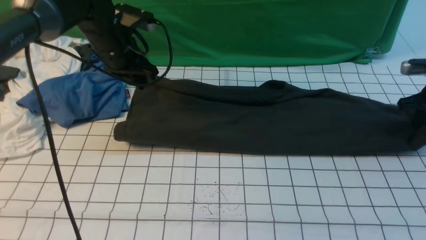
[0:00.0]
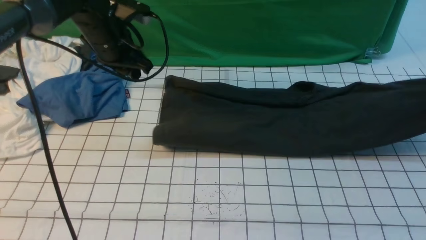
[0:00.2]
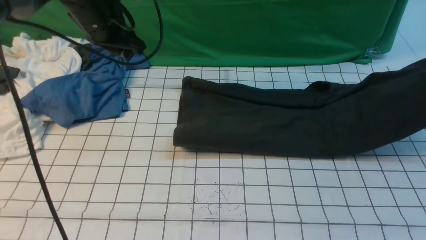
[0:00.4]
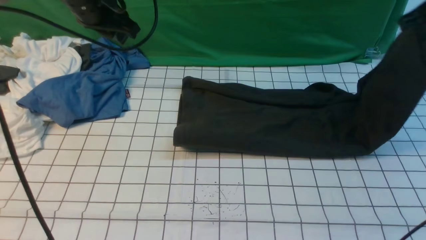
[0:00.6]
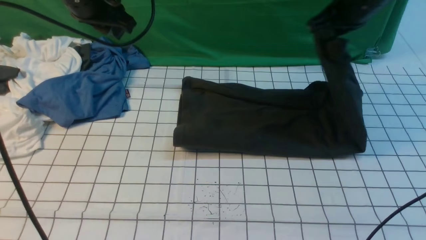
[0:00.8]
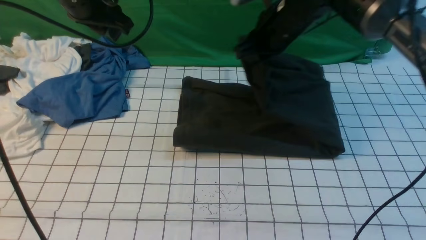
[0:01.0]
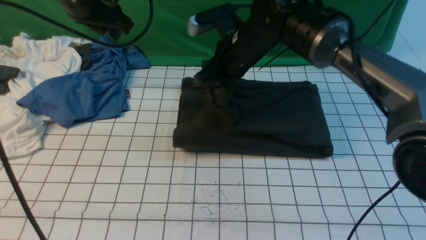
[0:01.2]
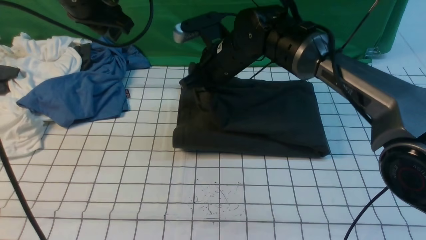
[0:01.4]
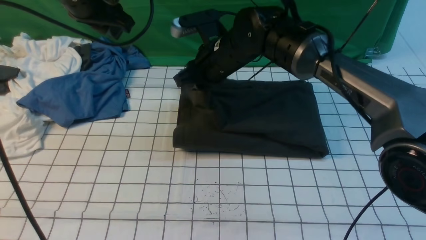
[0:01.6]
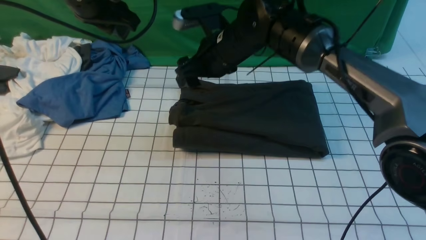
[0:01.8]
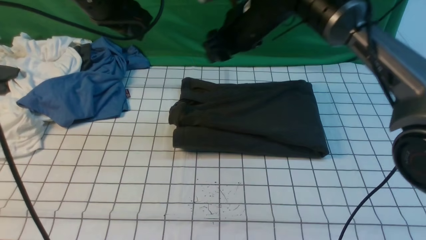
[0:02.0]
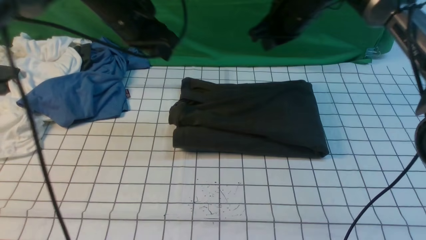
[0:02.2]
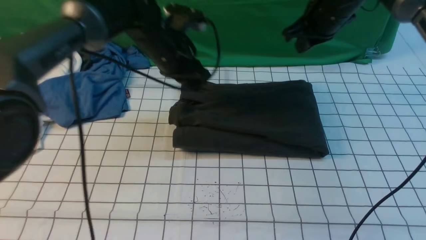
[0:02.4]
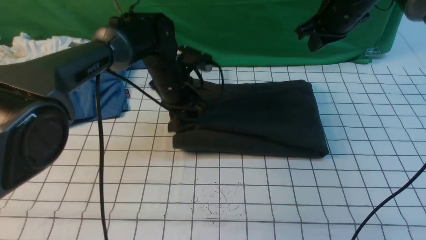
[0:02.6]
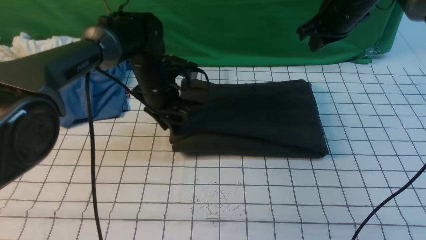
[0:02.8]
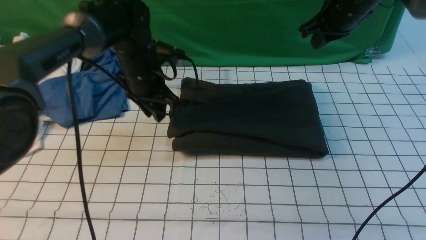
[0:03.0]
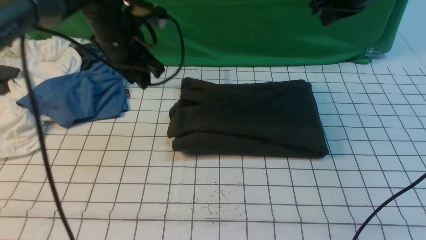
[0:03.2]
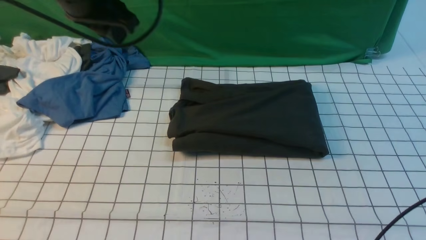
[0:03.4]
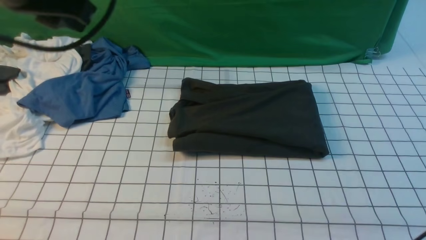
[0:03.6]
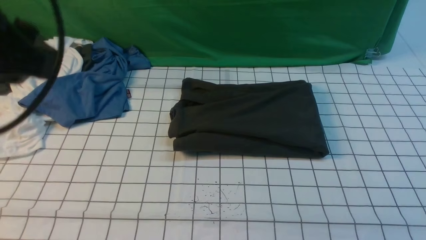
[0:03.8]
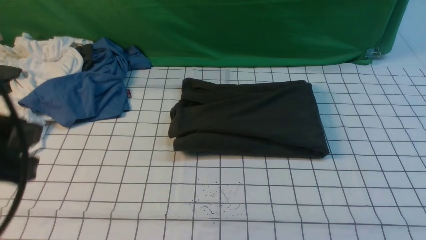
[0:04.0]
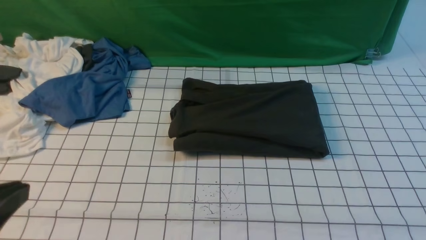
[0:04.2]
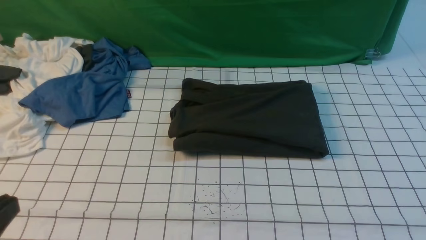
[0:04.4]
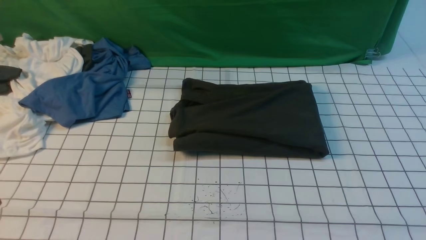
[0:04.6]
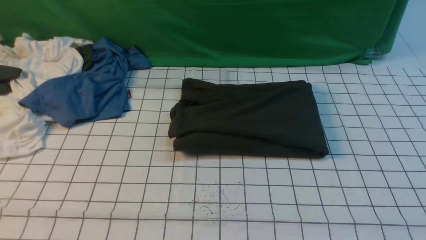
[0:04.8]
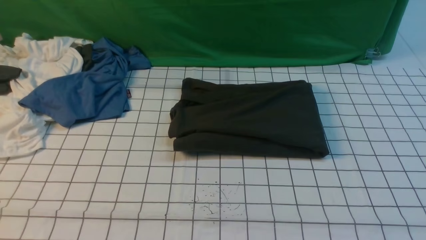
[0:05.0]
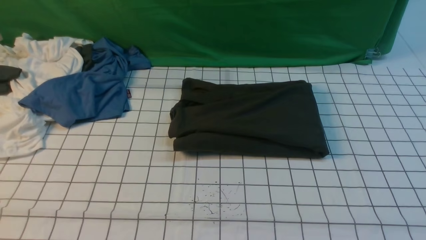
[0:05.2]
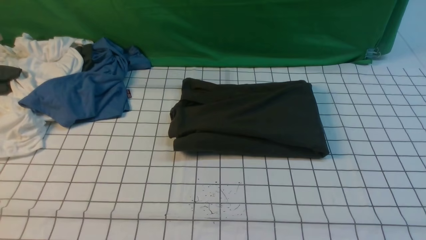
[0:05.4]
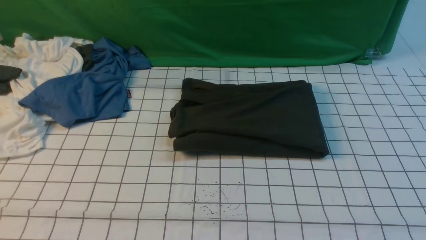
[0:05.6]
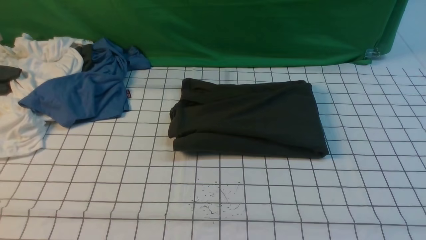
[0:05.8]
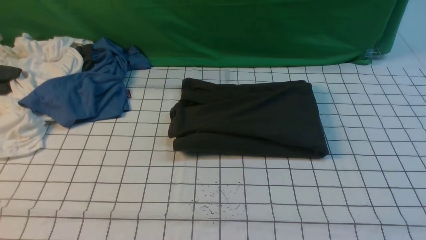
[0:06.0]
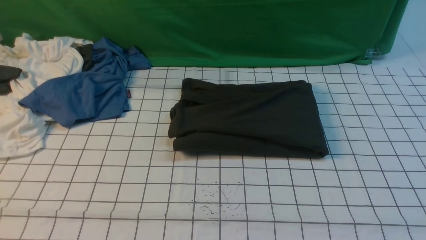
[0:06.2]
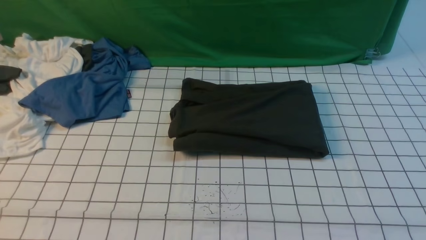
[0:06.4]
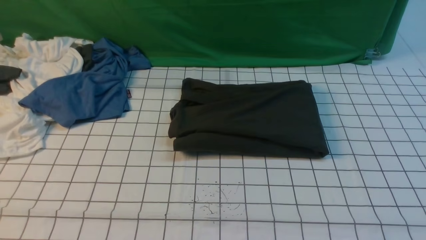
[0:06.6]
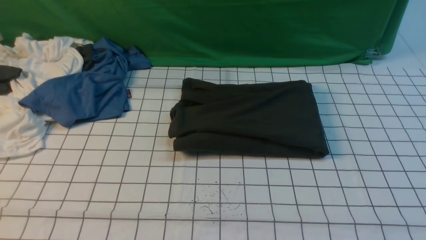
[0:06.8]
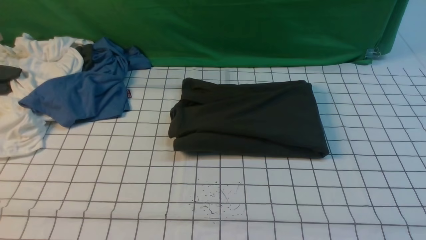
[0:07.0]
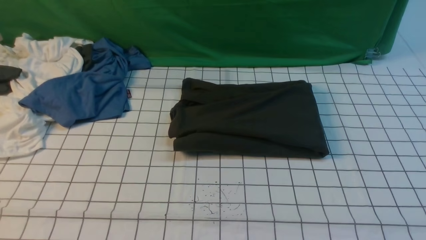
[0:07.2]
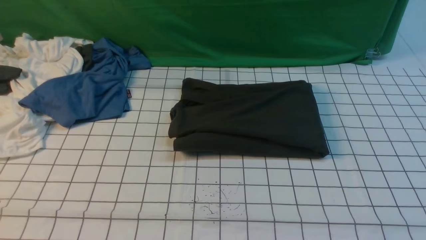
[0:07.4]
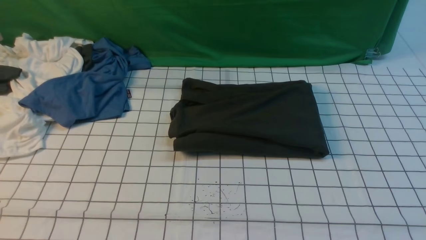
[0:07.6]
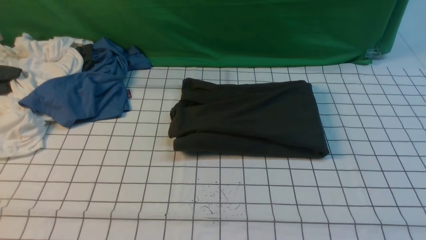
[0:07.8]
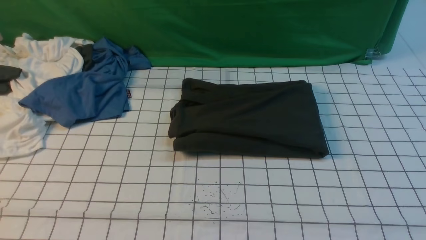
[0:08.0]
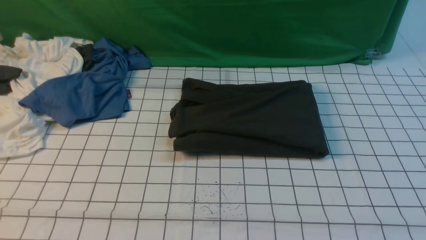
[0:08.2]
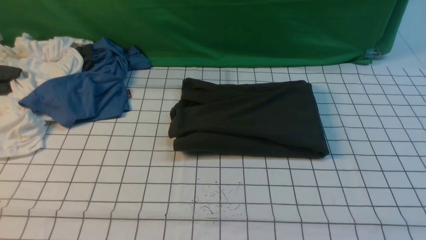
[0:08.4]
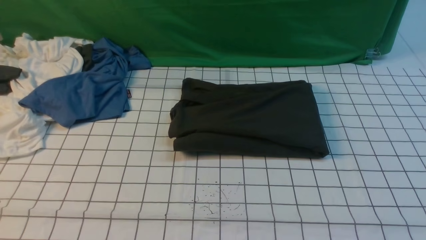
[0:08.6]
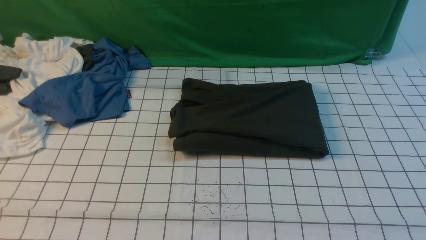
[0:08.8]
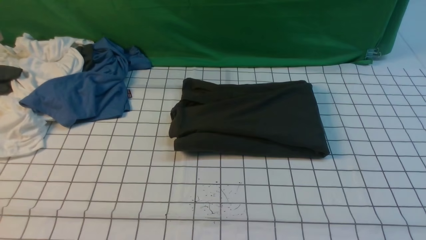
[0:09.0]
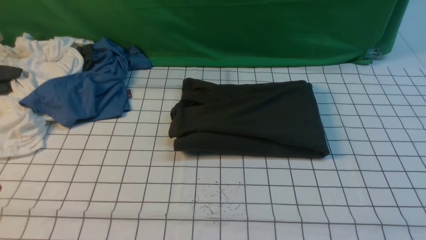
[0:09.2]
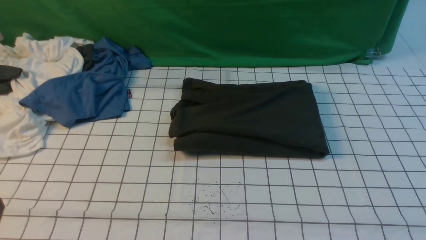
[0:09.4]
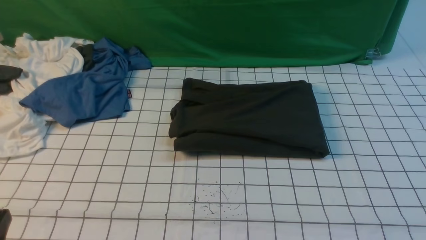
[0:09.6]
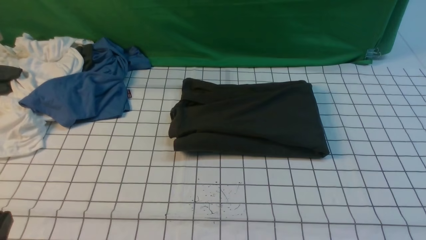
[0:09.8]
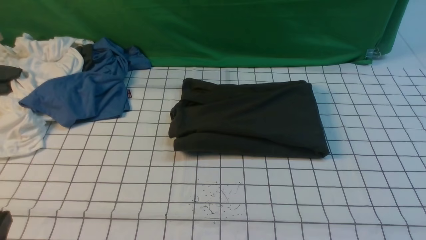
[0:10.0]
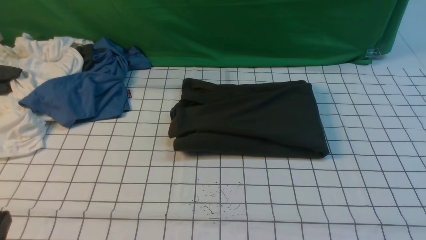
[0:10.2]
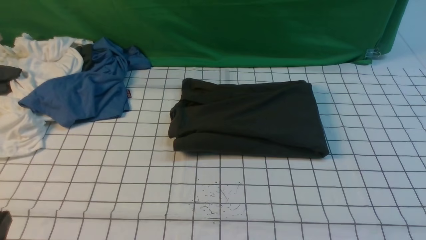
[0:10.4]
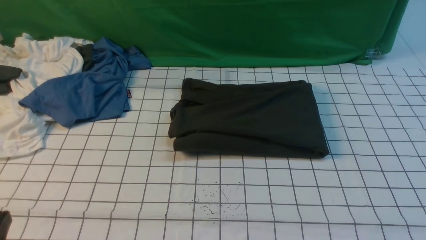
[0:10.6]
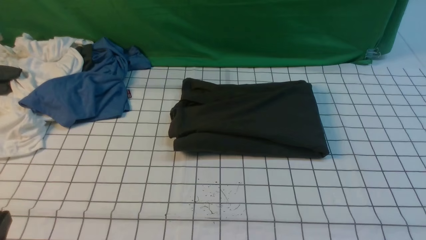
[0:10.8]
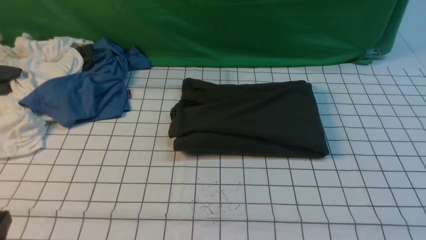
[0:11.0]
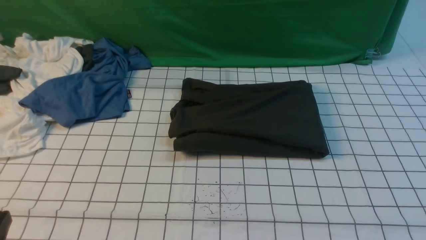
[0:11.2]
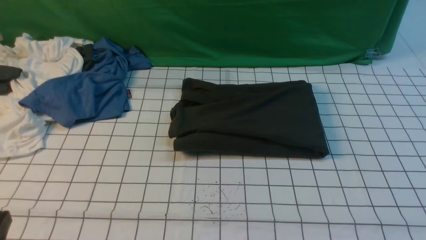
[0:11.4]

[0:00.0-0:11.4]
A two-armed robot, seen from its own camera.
Step, 0:00.2 to 0:01.8: use the right arm to drag the right edge of the fabric to the left and folds it over the left edge.
0:00.0 to 0:01.4: The left gripper heads upward, covering approximately 10 cm, while the right gripper goes roughly 40 cm to the left.
0:01.4 to 0:02.8: The left gripper moves downward and to the right, about 20 cm; the right gripper heads to the right, covering some 20 cm, and opens and closes again.
0:02.8 to 0:04.2: The right gripper shifts approximately 35 cm backward and upward; the left gripper goes some 40 cm backward.
0:04.2 to 0:05.6: The left gripper moves about 5 cm.
0:07.2 to 0:08.6: The two grippers keep their place.
0:10.0 to 0:11.4: Both grippers stay put.
